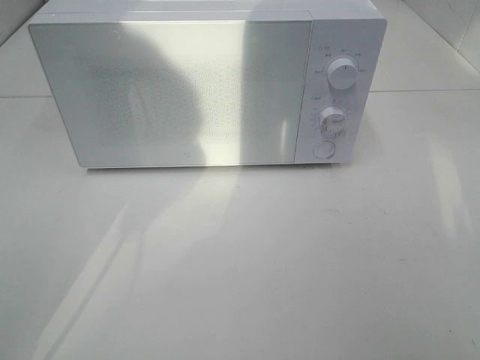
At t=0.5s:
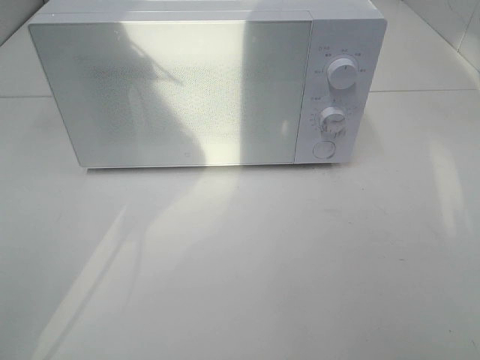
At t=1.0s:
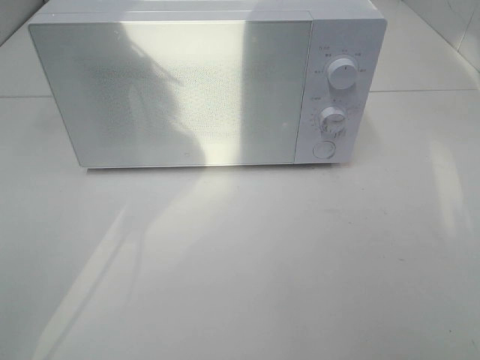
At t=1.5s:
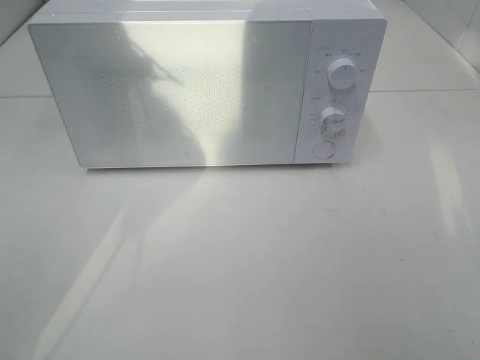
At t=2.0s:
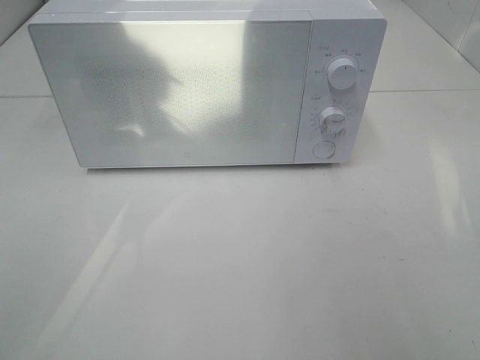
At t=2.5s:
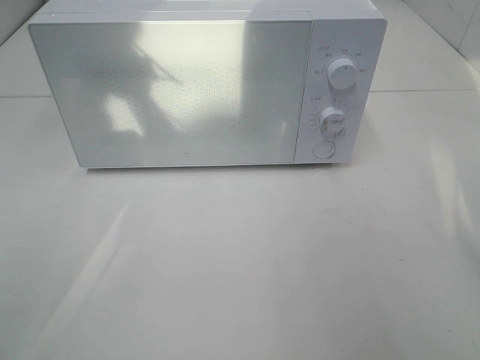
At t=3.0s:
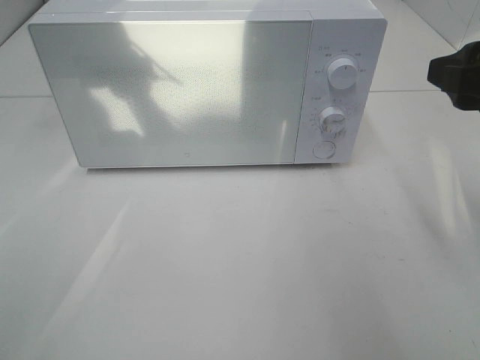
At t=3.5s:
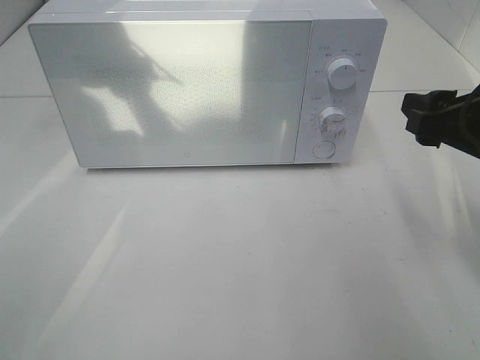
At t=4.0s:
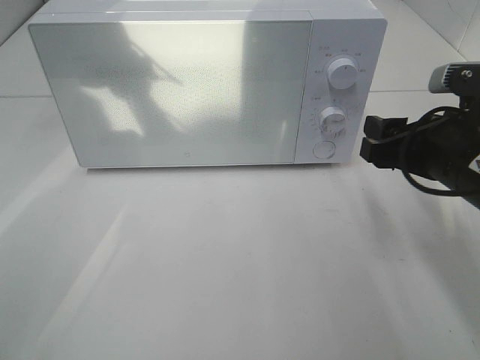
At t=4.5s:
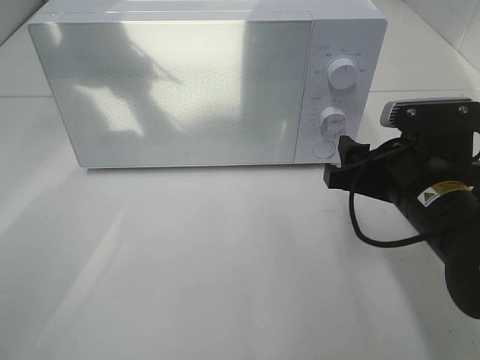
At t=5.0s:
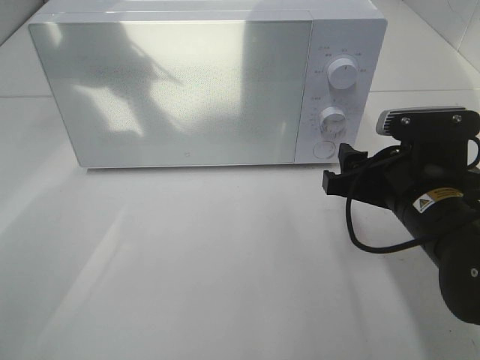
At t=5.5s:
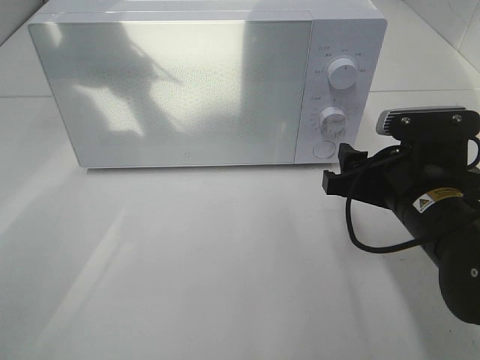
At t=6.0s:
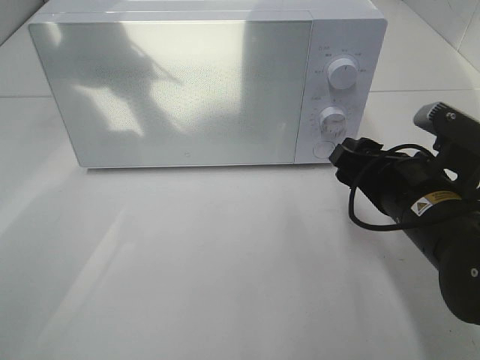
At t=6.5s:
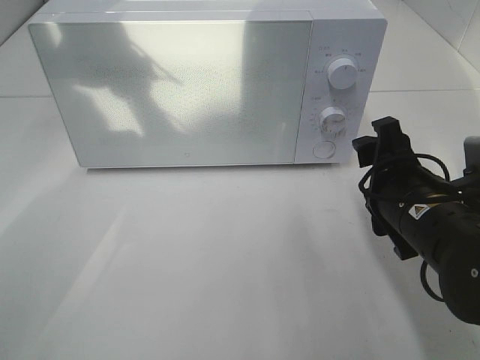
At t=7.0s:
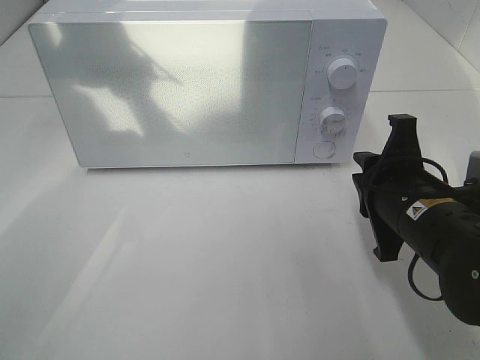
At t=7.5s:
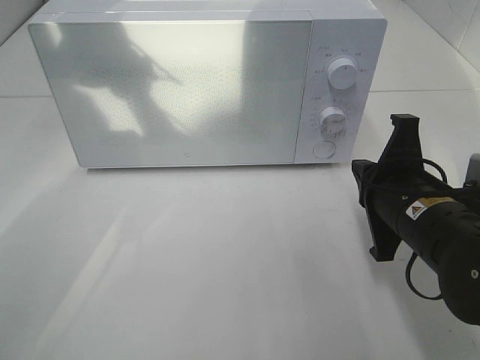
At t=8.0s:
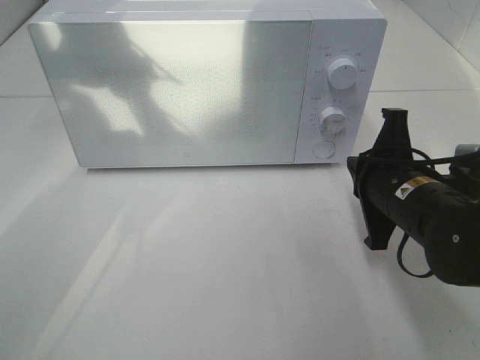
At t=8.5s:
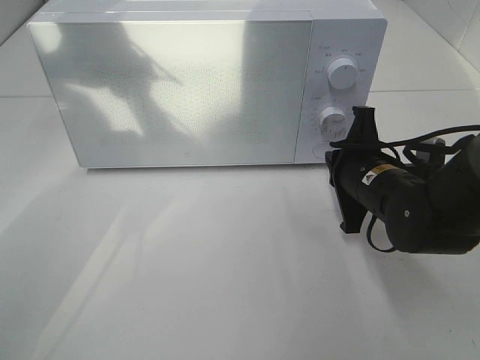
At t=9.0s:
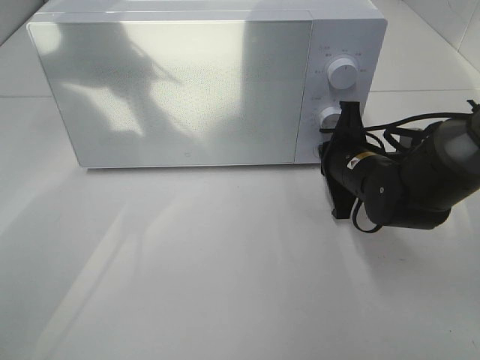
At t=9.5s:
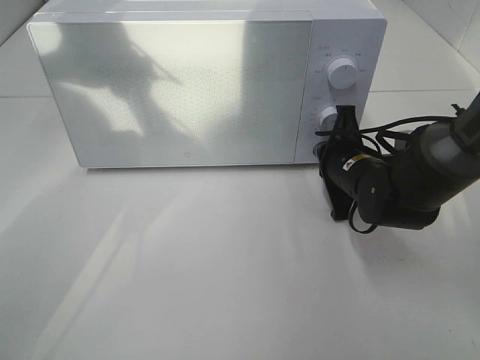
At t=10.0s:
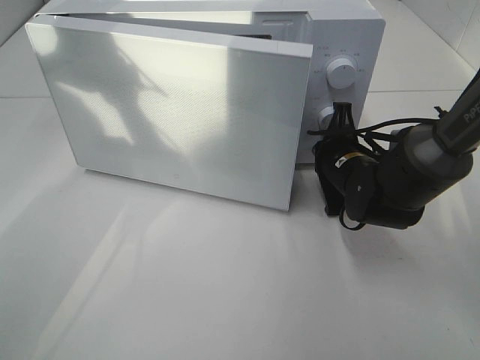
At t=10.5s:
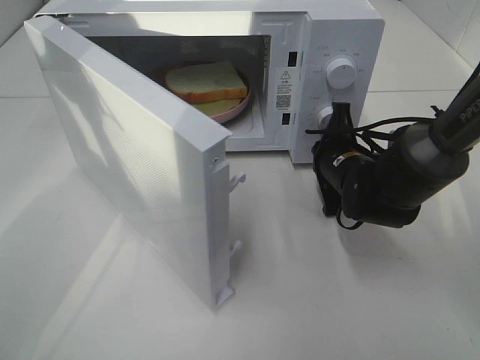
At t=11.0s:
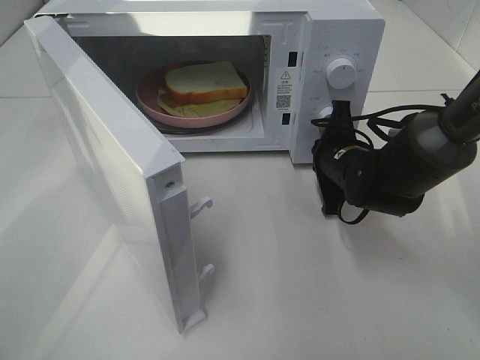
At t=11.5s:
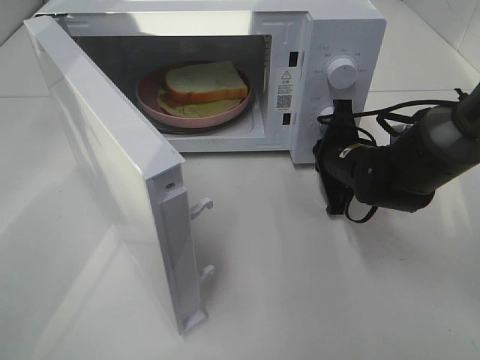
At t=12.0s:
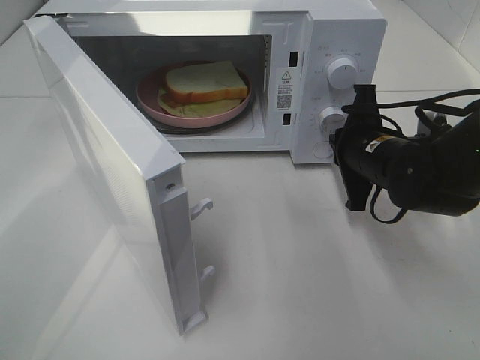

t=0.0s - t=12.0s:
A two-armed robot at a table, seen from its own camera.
Task of the whole recording: Heat Sandwich.
t=0.0s - t=2.0s: The right gripper is displaced forward by approximately 5 cm.
t=2.0s - t=4.0s: The right gripper is displaced forward, downward and to the left by about 25 cm.
t=4.0s - t=6.0s: The right gripper ends up approximately 5 cm from where it was.
t=6.0s - t=8.0s: The right gripper closes its fingers.
t=8.0s - t=10.0s: The right gripper is displaced forward and downward by about 10 cm.
t=10.0s - t=12.0s: The right gripper changes place by approximately 5 cm.

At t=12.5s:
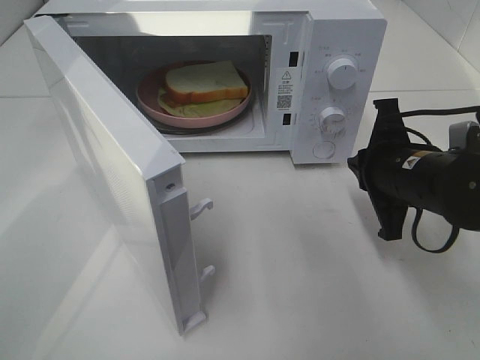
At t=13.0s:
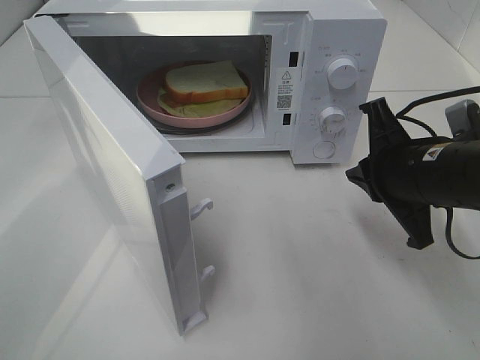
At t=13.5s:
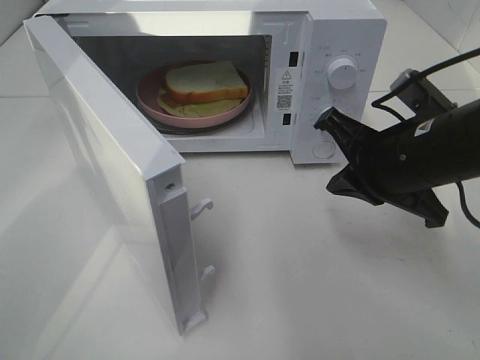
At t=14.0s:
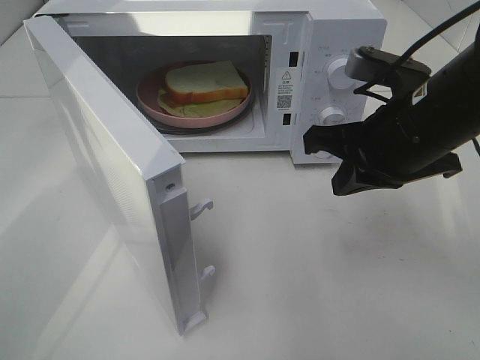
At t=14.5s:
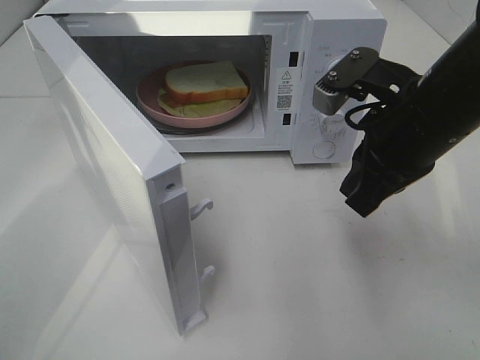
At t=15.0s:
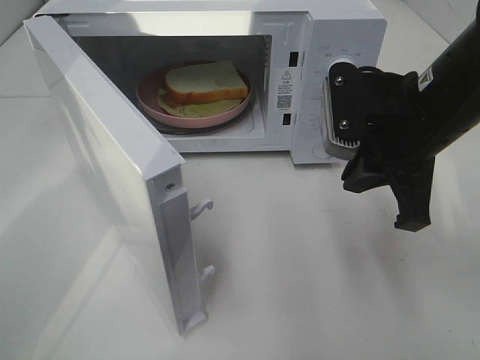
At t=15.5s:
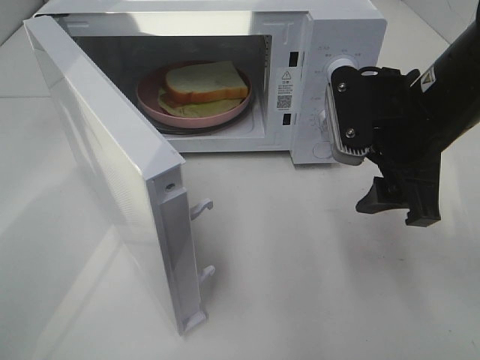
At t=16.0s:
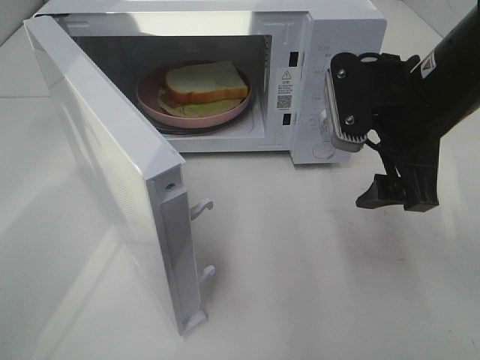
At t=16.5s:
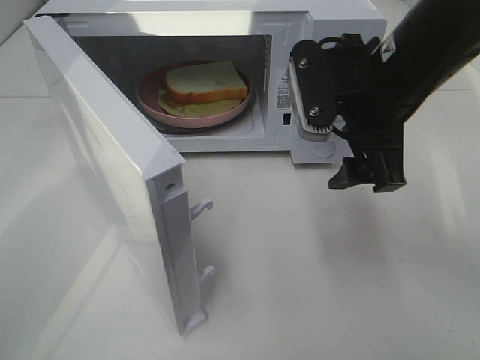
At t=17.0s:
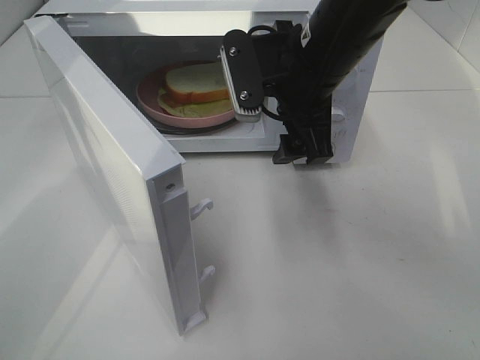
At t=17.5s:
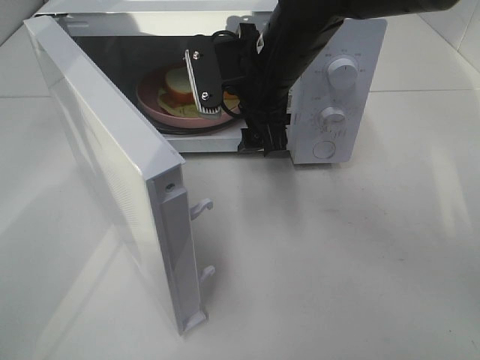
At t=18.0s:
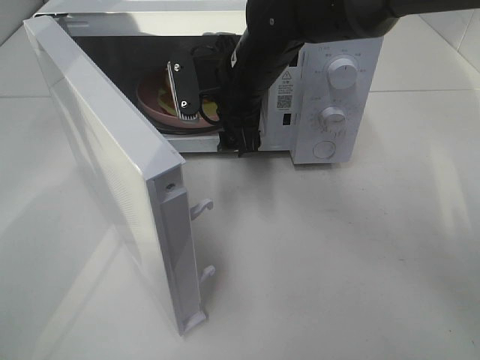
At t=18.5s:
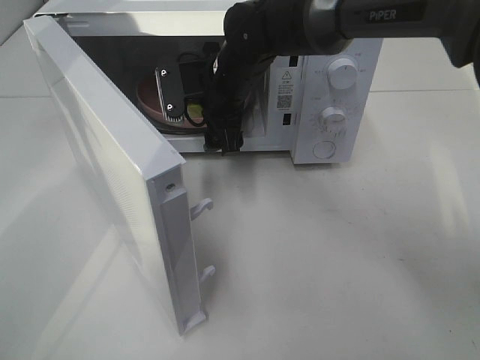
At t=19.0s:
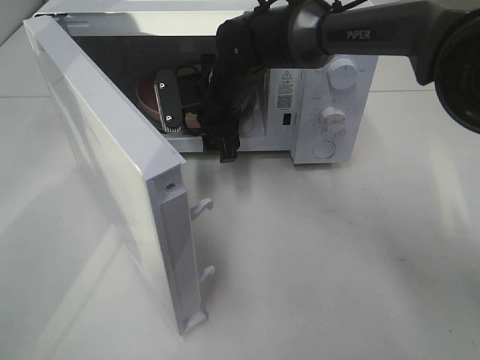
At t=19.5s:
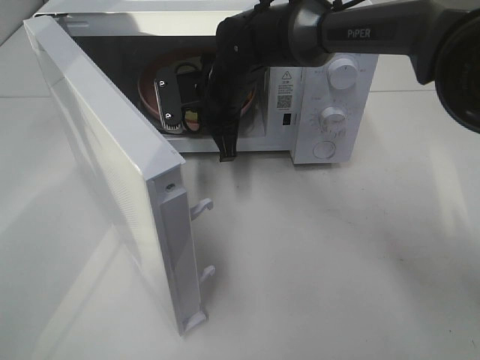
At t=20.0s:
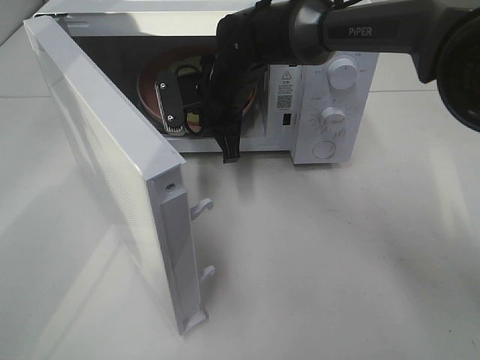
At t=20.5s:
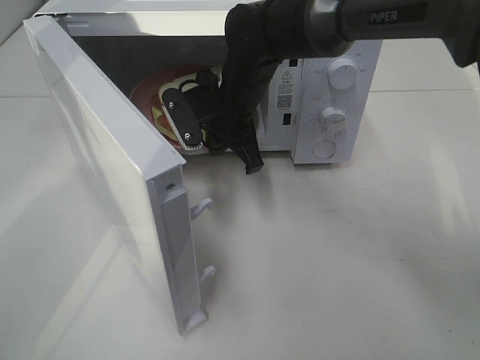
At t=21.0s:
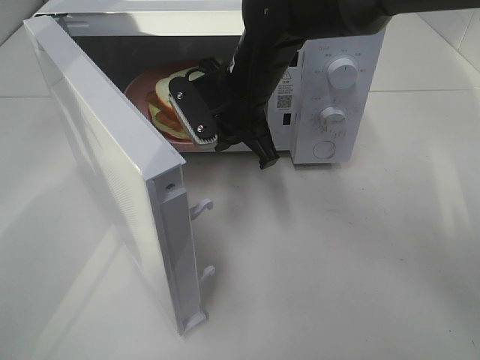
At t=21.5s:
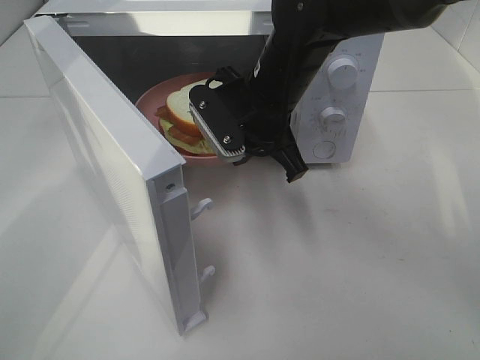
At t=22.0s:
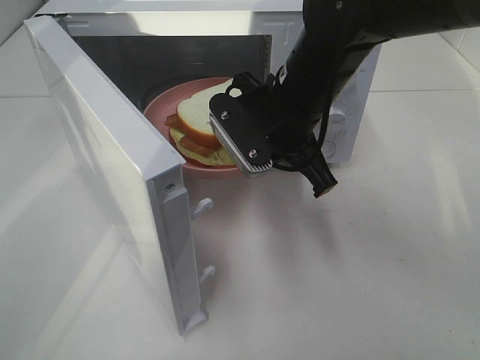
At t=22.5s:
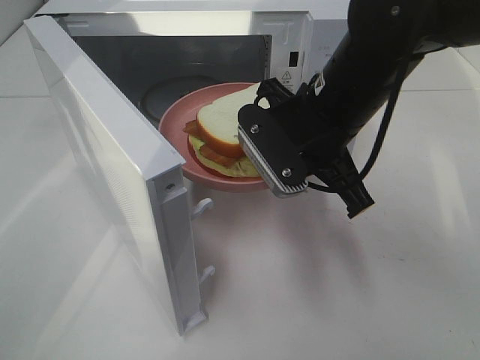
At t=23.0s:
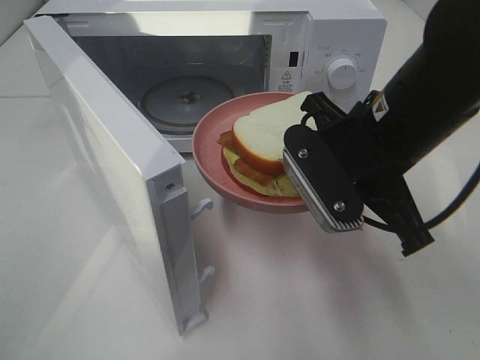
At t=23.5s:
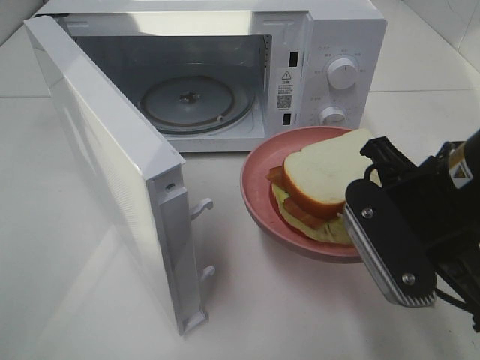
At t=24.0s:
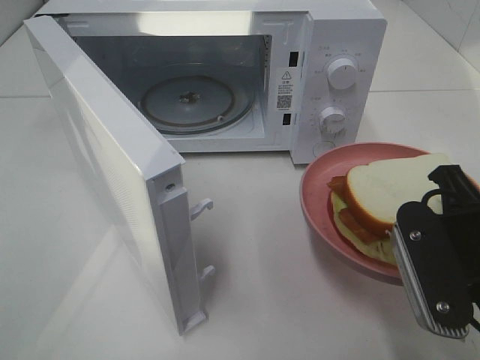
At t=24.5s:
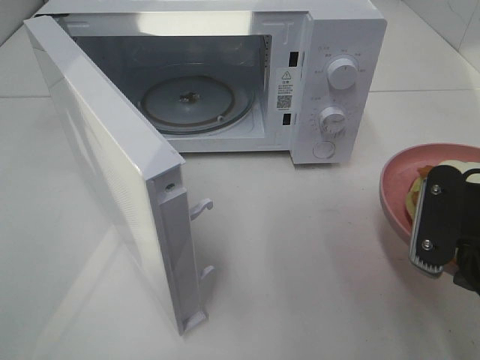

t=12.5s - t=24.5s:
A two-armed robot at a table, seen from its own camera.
Task of the whole recording: Heat Sandwich.
Step, t=12.5s - t=19.5s: Right hand: grab the plate with the sandwich.
t=12.5s - t=14.5s: The right gripper heads upward, covering roughly 10 cm.
t=14.5s - t=16.5s: The right gripper opens up.
t=16.5s - t=18.5s: The right gripper heads forward, to the left and downward, covering about 20 cm.
t=18.5s - t=20.5s: The right gripper closes.
t=20.5s - t=22.5s: The right gripper moves backward, to the right and upward, about 15 cm.
t=22.5s - t=24.5s: The right gripper travels backward and to the right by about 20 cm.

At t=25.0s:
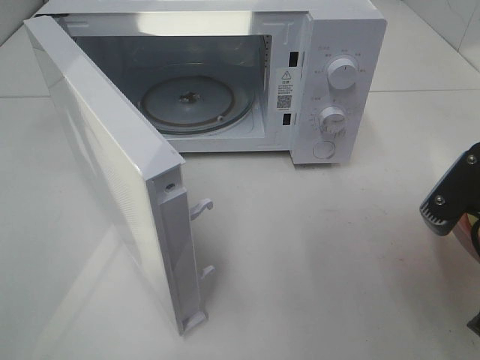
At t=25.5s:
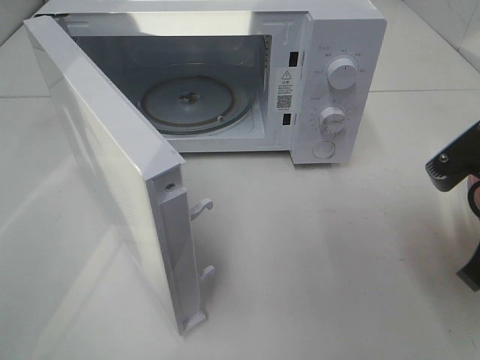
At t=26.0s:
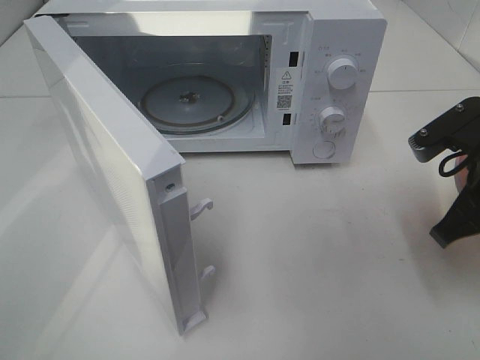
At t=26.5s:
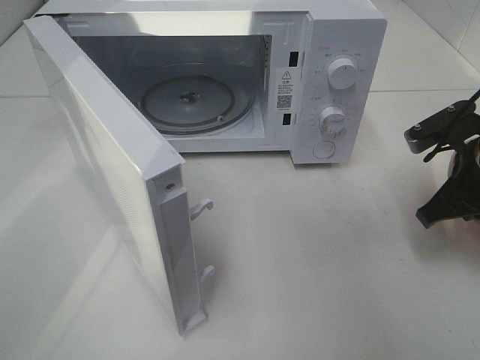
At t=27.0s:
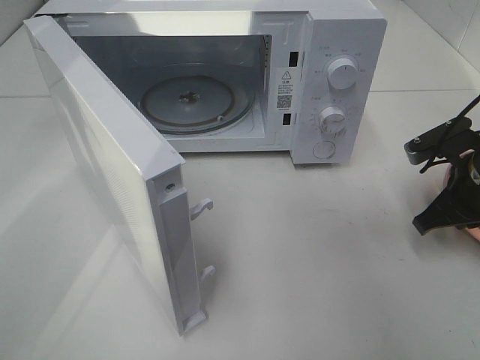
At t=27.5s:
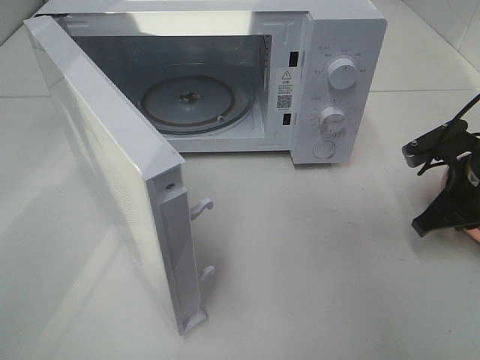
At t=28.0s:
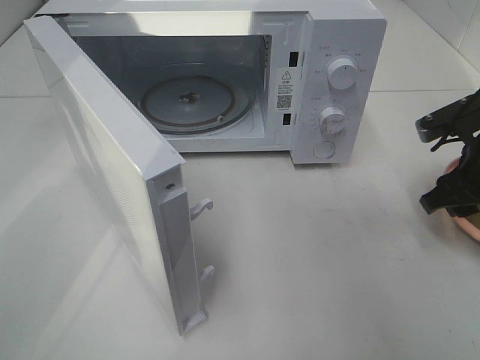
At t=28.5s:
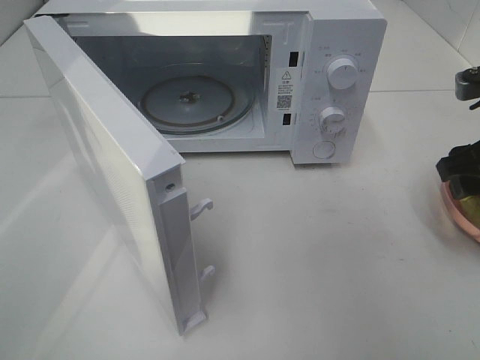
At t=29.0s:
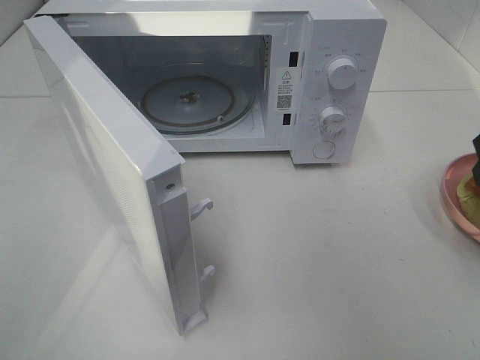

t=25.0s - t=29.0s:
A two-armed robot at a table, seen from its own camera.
Task of the whole recording: Heat Sandwich.
Step, t=25.0s - t=28.0s: Right hand: place the plate on the table.
t=25.0s - t=27.0s: The right gripper travels forward and downward by about 15 cm.
t=27.0s - t=29.0s: The right gripper goes some 15 cm upward and backward, and opens up.
